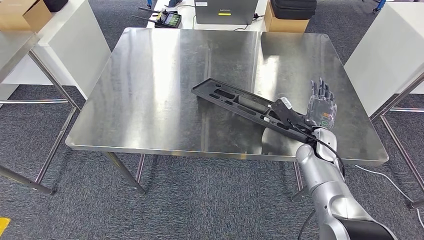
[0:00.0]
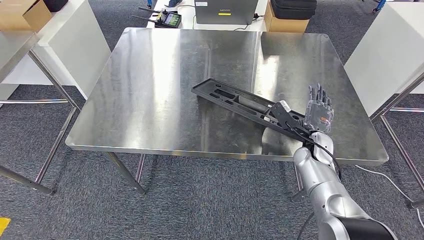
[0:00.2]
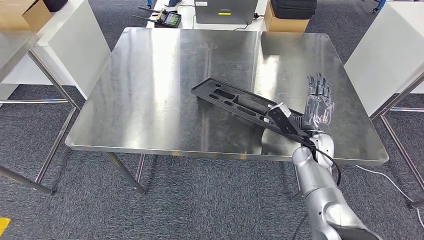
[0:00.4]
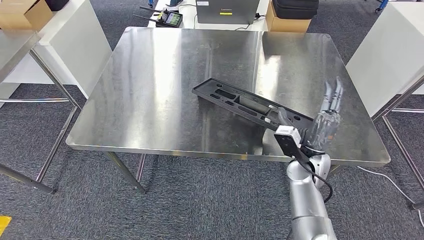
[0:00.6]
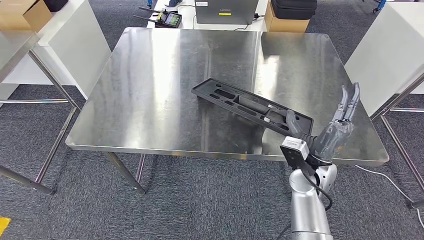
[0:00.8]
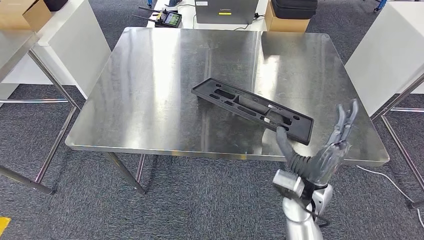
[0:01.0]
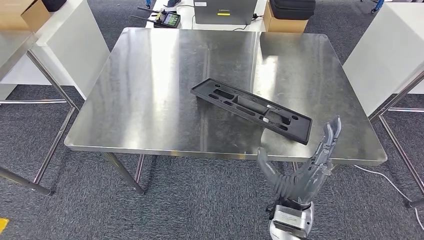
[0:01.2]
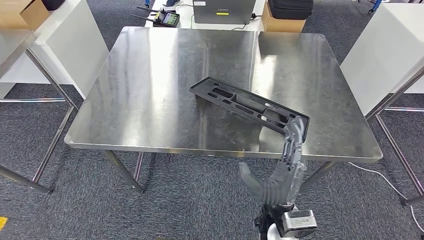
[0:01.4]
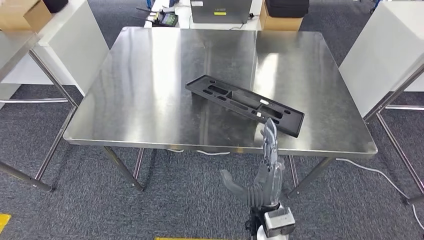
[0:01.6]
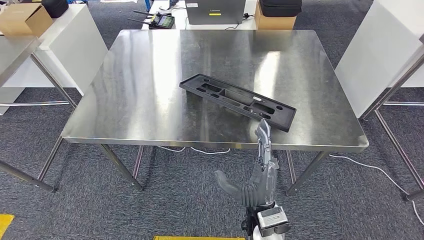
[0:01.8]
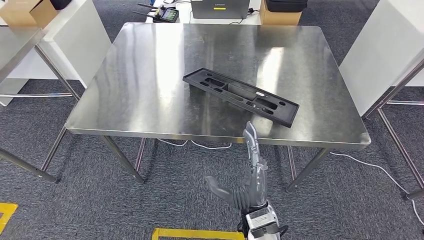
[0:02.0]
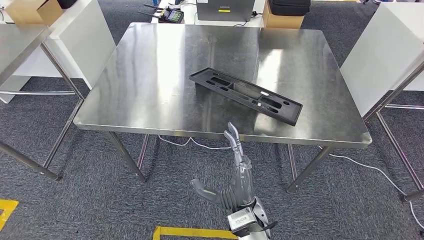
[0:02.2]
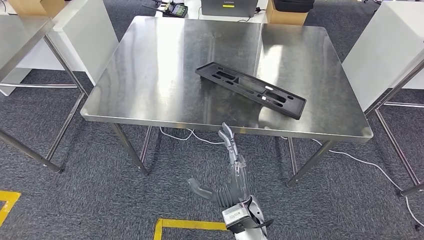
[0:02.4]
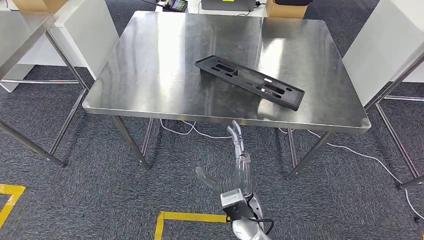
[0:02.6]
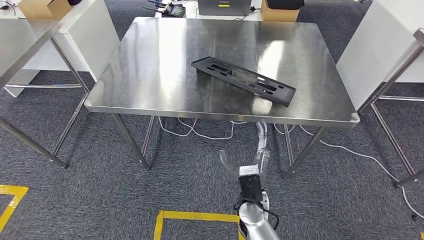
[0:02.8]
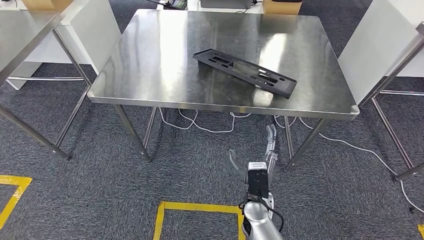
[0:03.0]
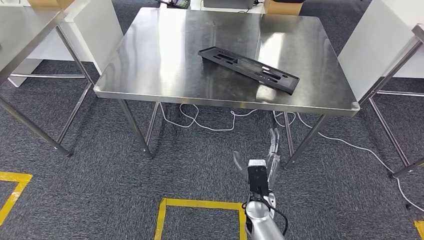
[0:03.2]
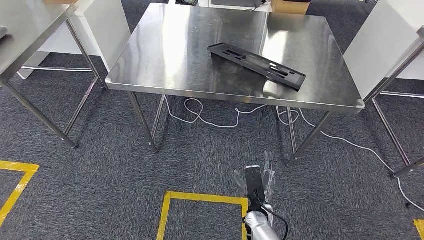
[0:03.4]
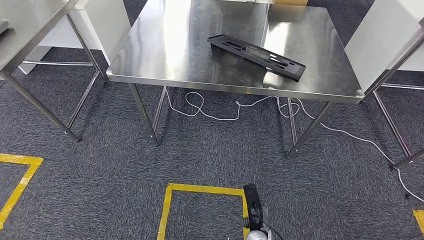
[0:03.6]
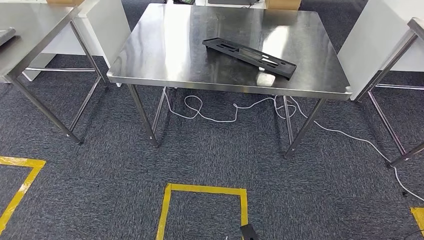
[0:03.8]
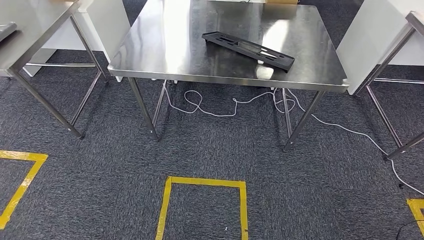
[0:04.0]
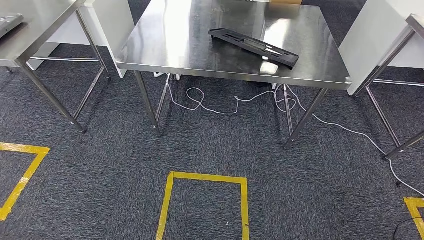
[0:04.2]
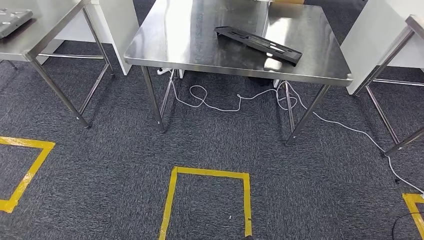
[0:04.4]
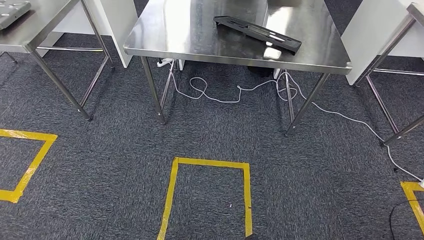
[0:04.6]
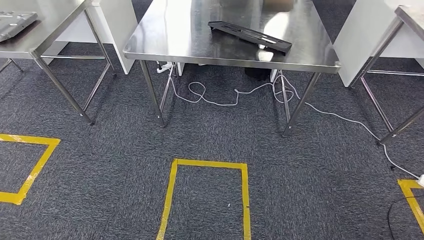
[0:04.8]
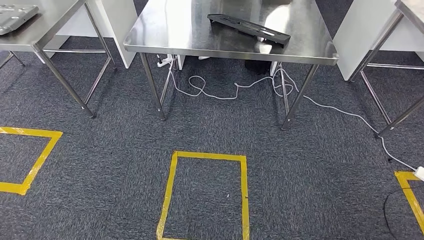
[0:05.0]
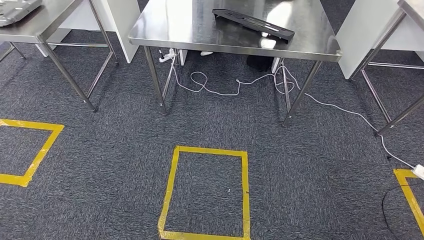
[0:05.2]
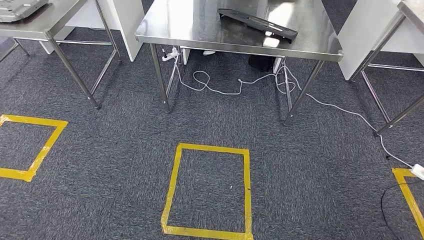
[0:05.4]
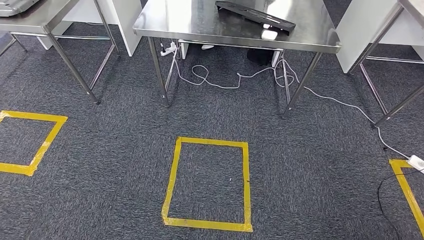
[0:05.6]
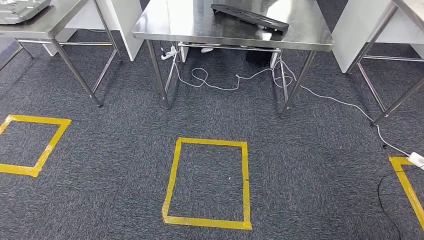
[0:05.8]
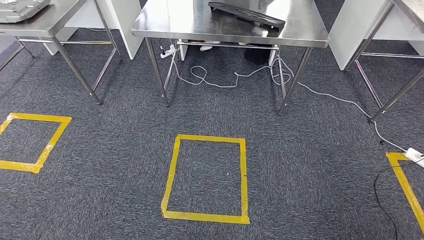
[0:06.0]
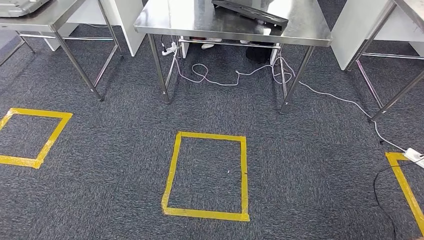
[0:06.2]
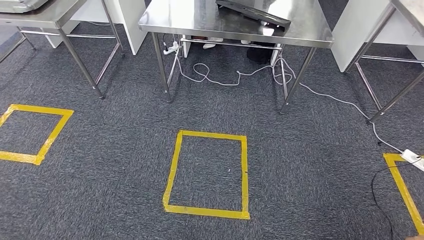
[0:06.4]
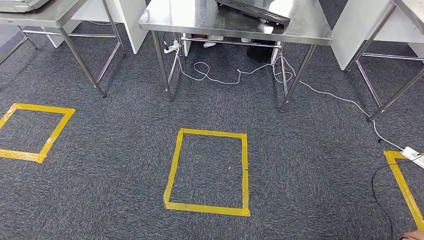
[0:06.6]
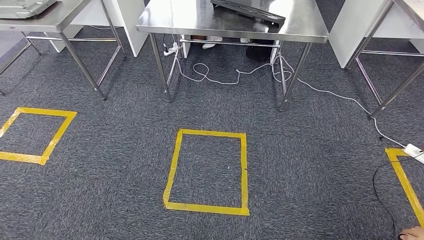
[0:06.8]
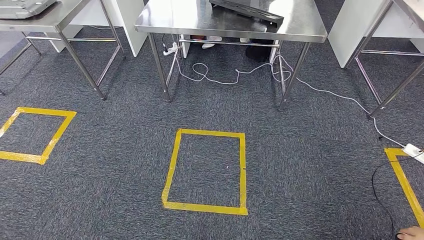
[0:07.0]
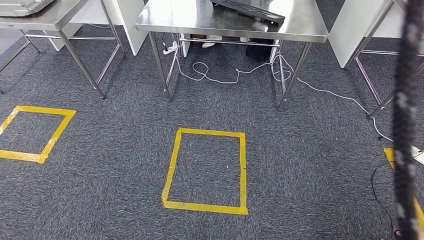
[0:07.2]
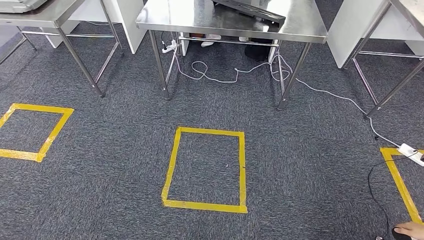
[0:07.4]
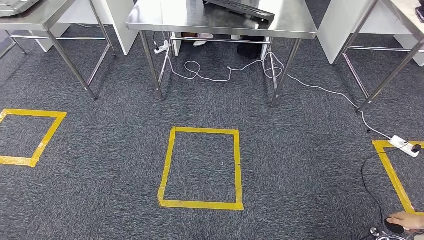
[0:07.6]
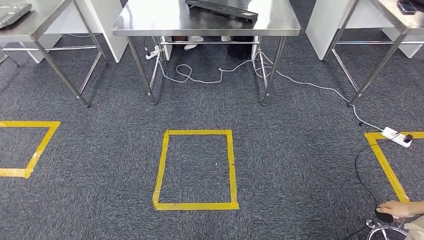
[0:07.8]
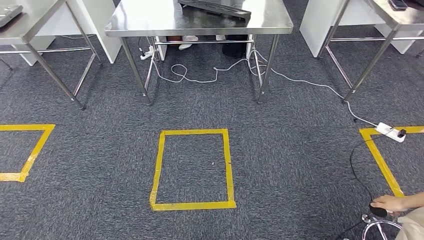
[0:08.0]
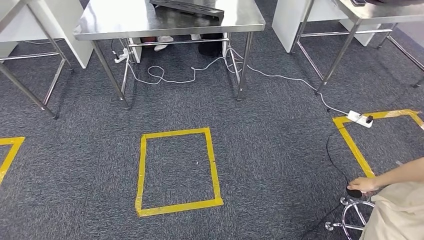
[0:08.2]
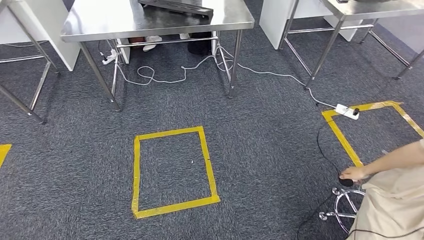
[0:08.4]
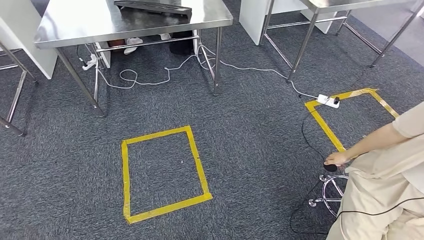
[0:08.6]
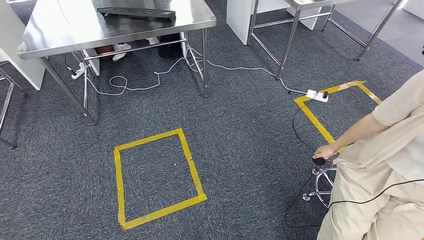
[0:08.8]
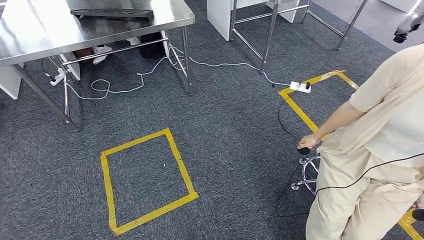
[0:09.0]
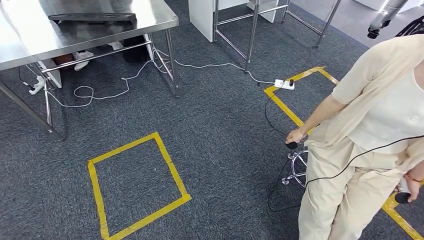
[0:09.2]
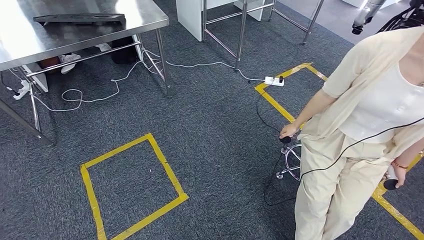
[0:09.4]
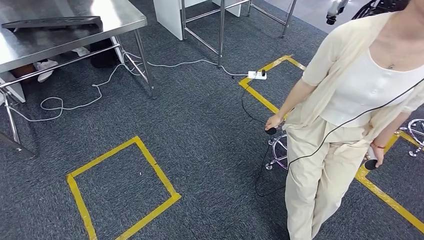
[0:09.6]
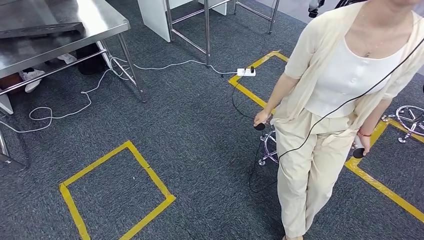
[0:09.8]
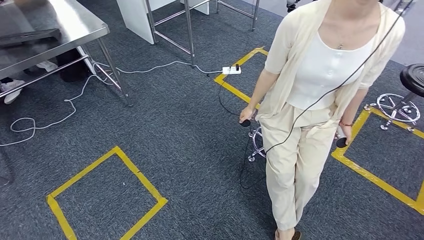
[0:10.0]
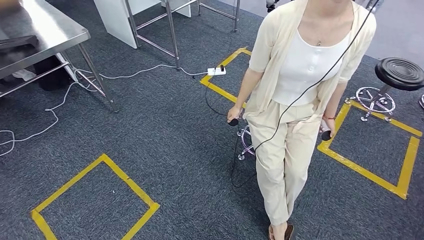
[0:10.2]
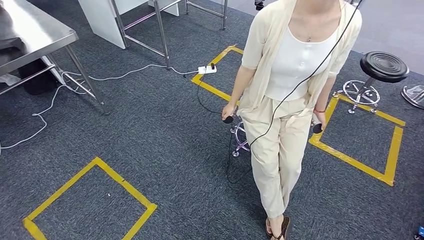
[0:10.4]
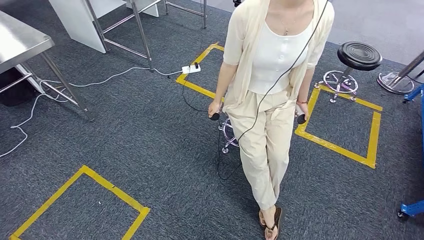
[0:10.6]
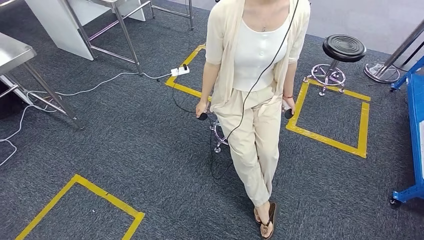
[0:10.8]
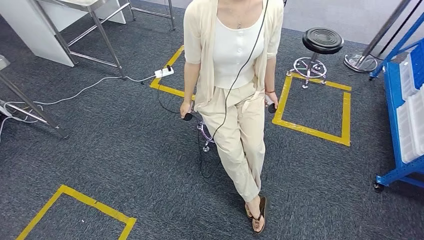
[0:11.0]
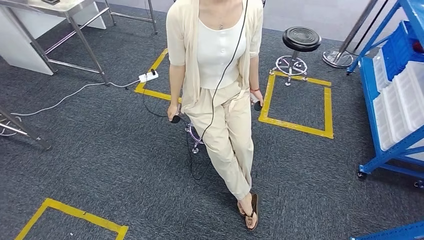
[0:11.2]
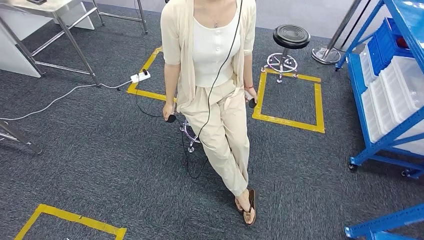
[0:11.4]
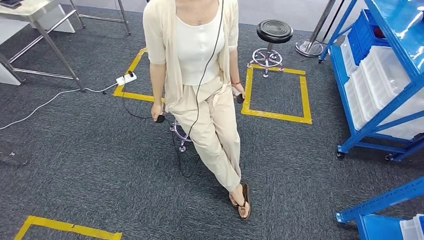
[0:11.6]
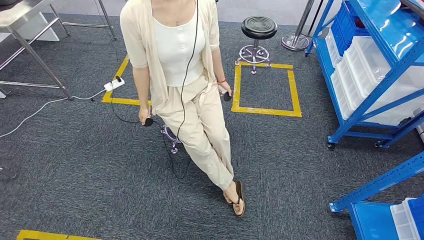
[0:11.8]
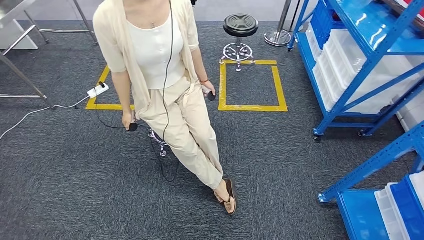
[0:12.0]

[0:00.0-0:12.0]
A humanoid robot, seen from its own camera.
Step, 0:00.0 to 0:03.8: Insert the large material into the corresponding slot on the workbench.
0:00.0 to 0:01.6: The right hand moves backward and to the left, roughly 25 cm.
